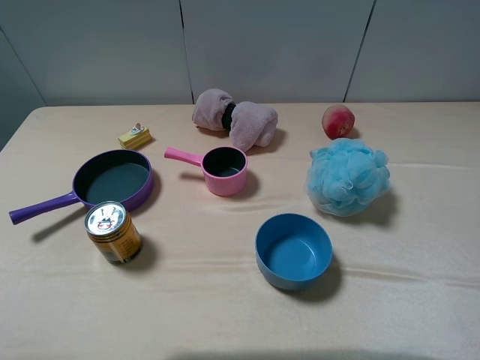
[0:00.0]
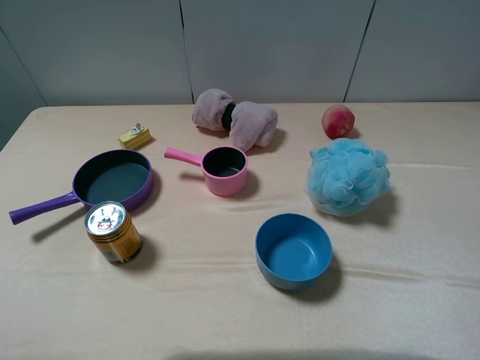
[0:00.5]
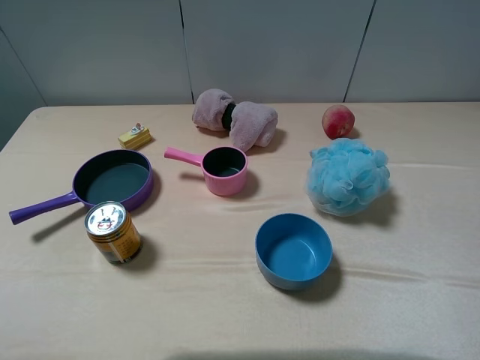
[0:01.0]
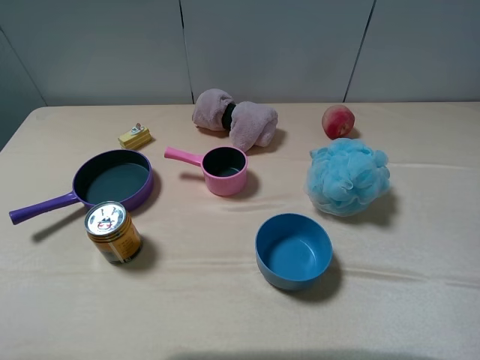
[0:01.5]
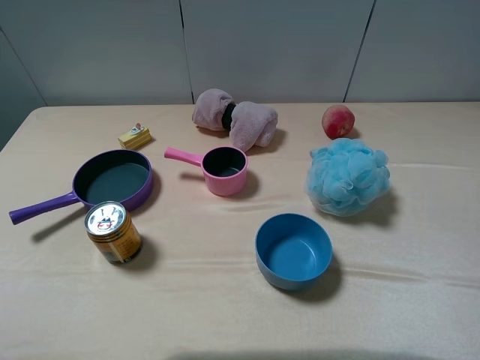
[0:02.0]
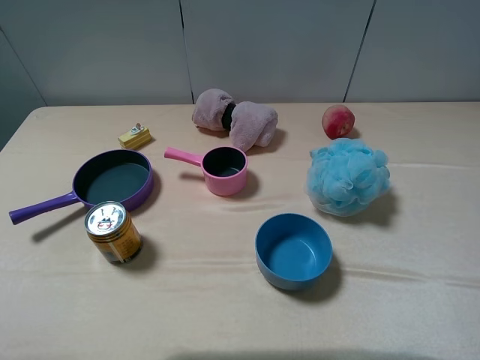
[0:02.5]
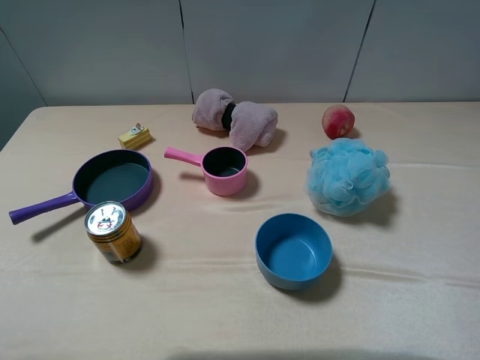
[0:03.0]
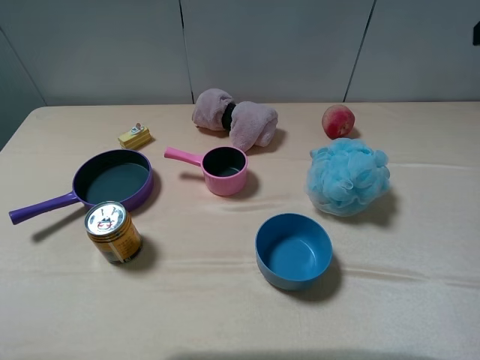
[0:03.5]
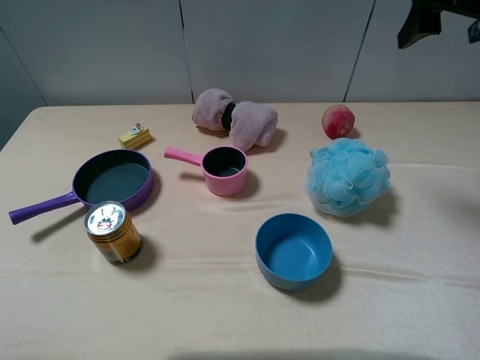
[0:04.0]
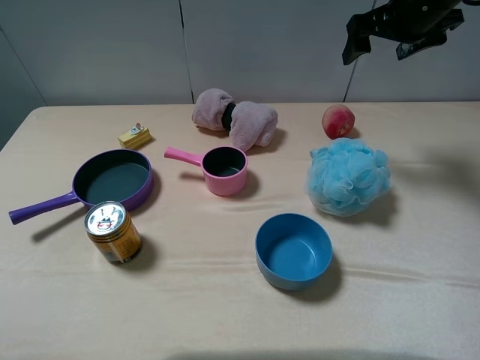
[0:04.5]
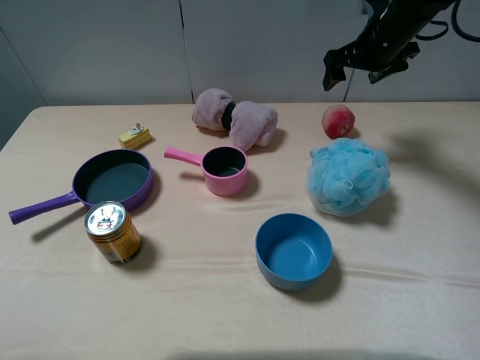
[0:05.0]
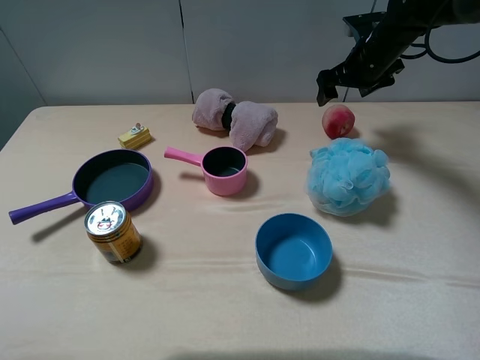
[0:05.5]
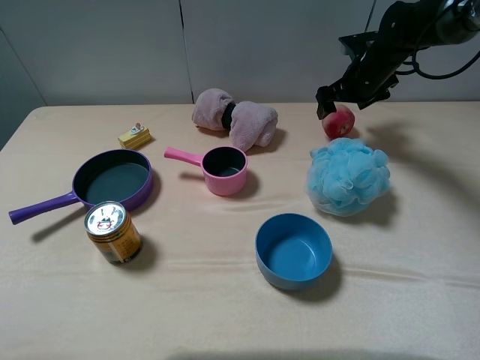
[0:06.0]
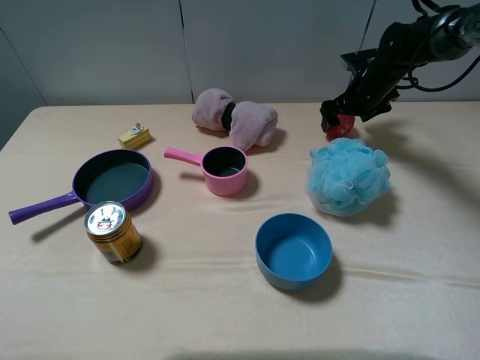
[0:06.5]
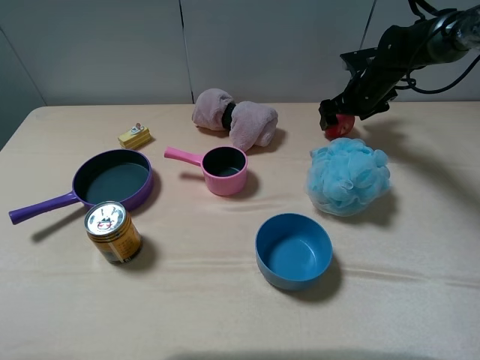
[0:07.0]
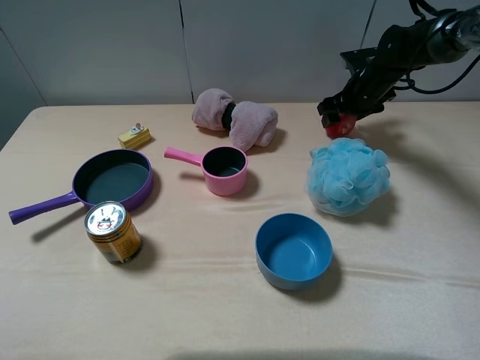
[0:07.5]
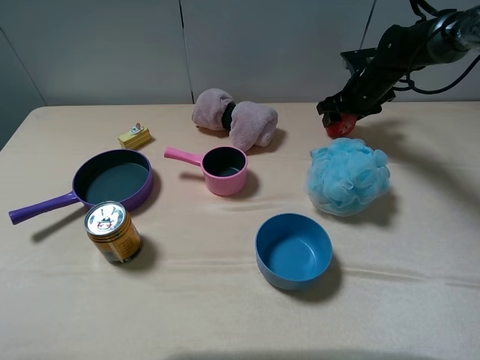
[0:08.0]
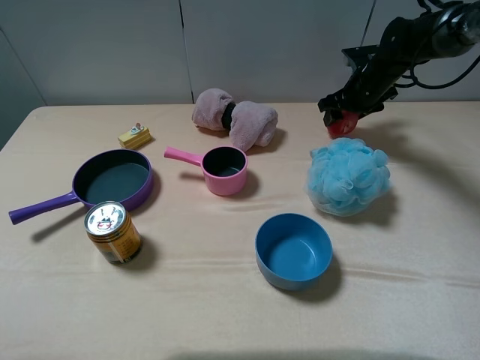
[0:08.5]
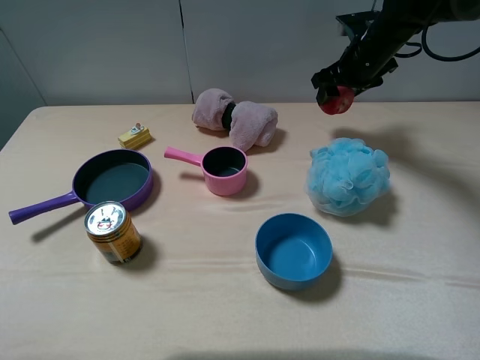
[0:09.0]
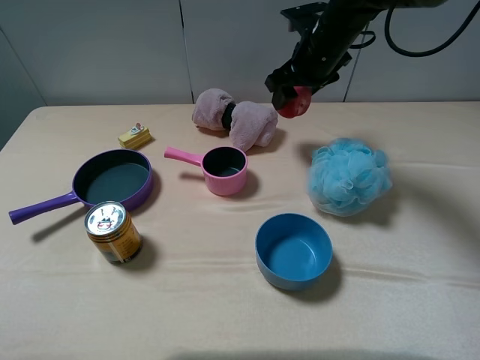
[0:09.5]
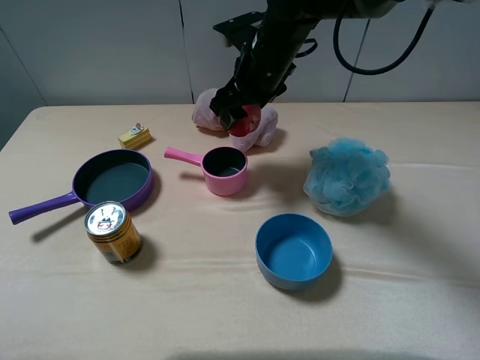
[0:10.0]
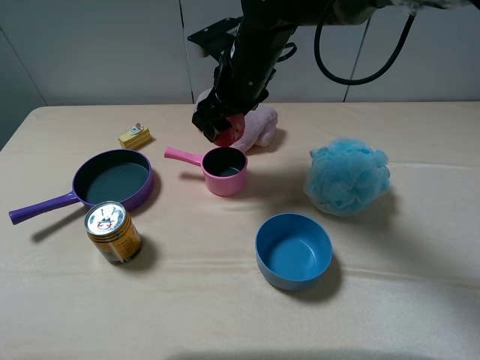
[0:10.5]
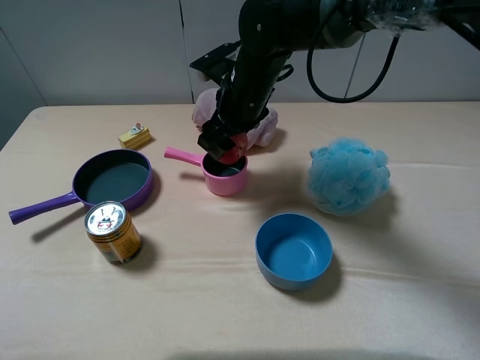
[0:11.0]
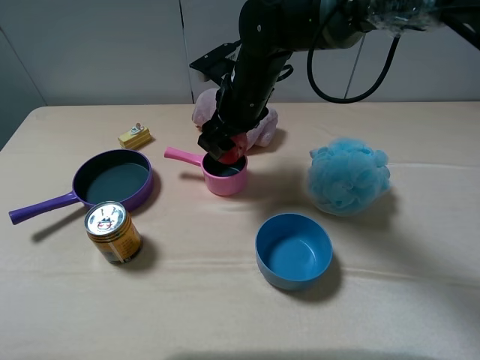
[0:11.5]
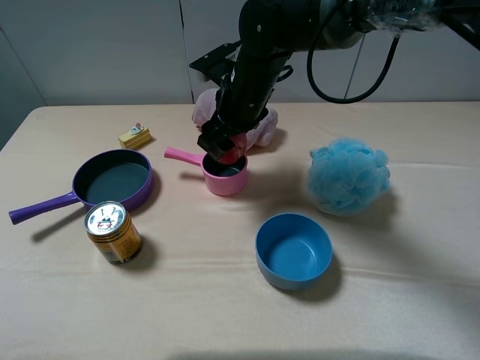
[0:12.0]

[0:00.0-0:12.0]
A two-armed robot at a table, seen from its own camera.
Task of the whole recording: pick up an item with a gripper and place it in a random container on the table.
Step, 0.0 to 7.5 s: Grasp the peach with the right gripper.
0.0 to 2.0 s: Both grippers stay about where they are.
2.0 to 4.0 s: The right gripper moves forward, approximately 35 cm.
4.0 to 6.0 s: The right gripper travels downward and forward by roughly 25 cm.
6.0 to 8.0 s: The right gripper closes up.
8.0 to 10.0 s: The right gripper goes roughly 25 cm to the left, backward and upward.
10.0 to 12.0 s: The grippers make only small movements.

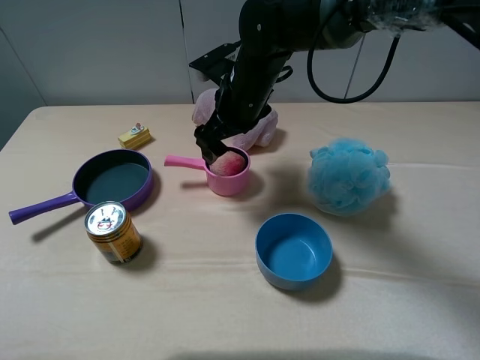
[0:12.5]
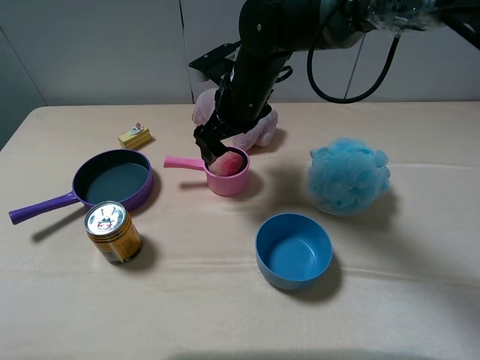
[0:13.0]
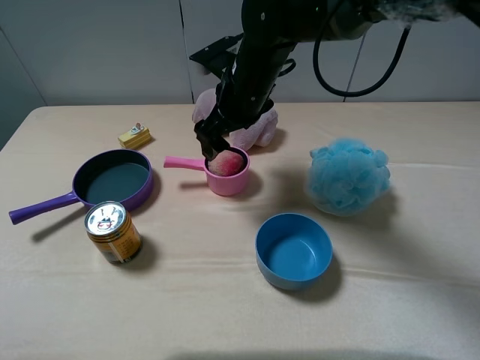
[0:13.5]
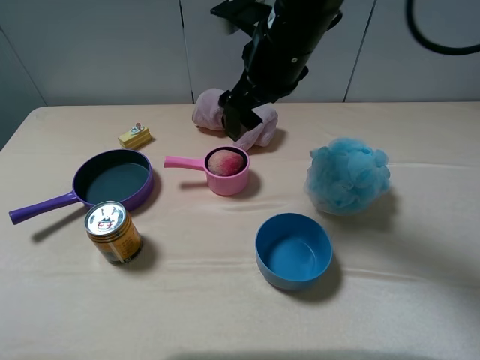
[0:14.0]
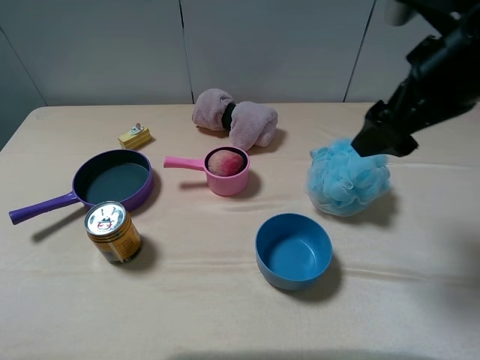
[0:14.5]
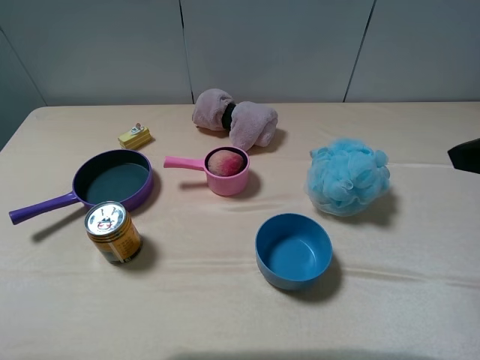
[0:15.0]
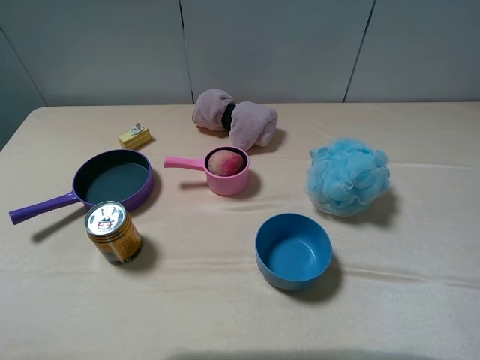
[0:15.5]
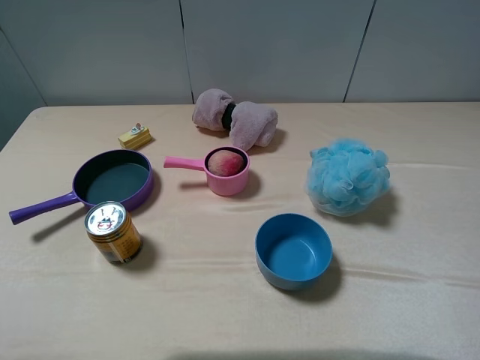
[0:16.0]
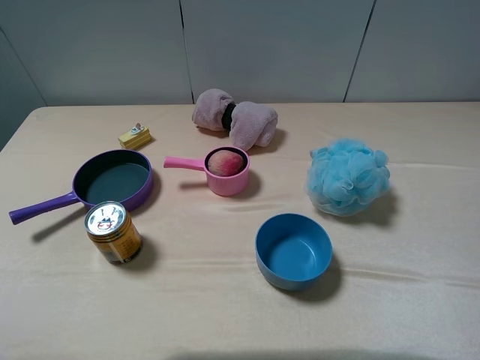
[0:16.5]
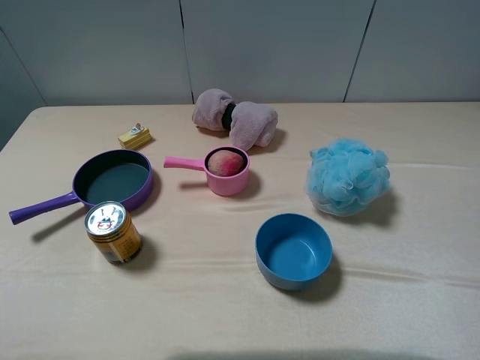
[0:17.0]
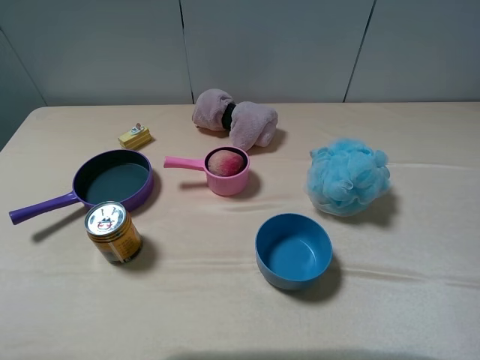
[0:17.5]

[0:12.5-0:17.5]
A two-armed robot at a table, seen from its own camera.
Task of the whole recording: pick up an item with a gripper and place it in a random container on the table.
12.5 to 15.0 s: The right gripper heads to the right, backward and upward, covering about 35 cm.

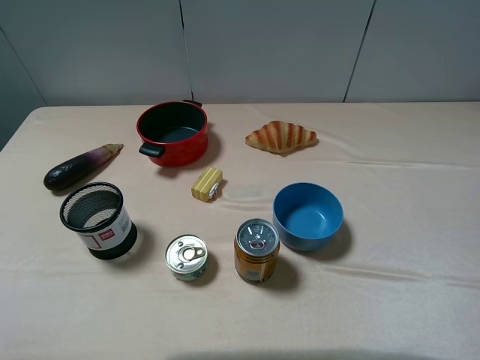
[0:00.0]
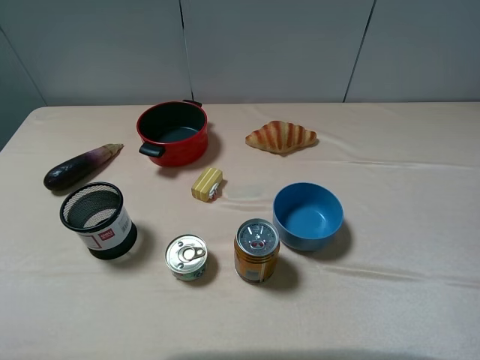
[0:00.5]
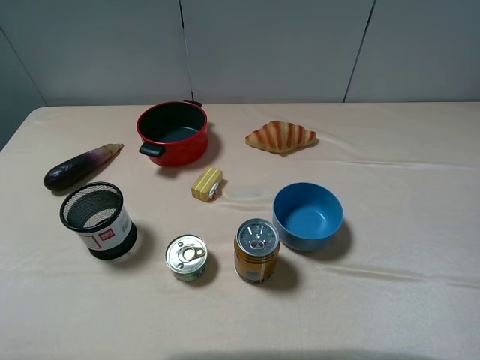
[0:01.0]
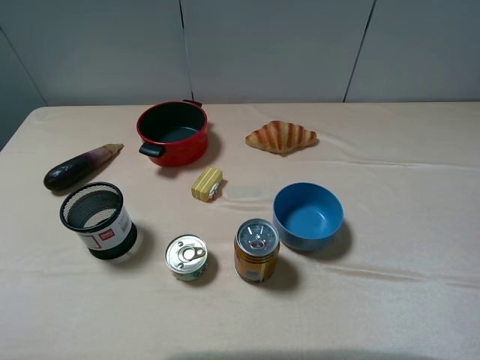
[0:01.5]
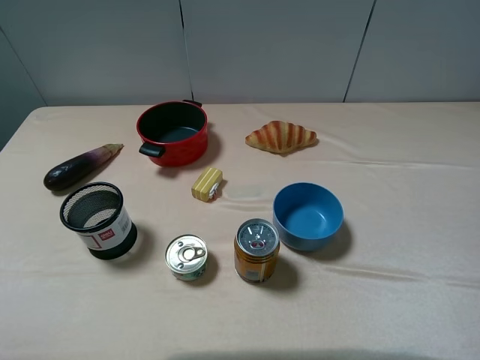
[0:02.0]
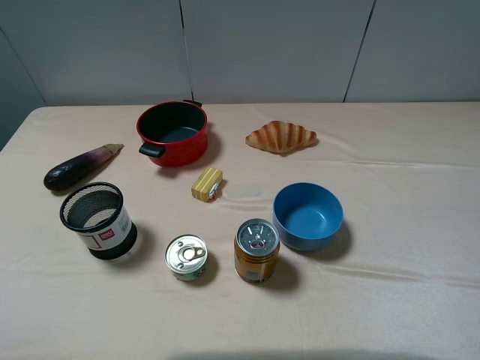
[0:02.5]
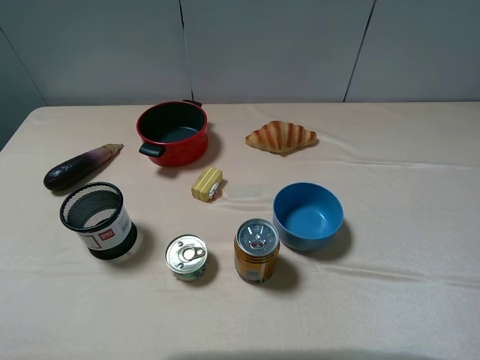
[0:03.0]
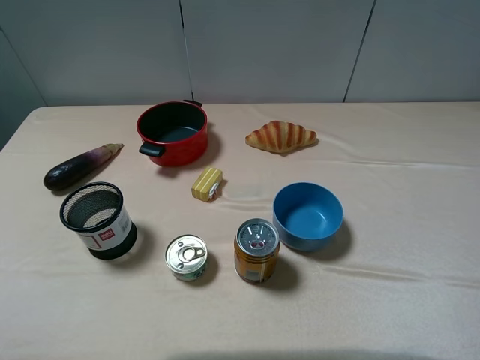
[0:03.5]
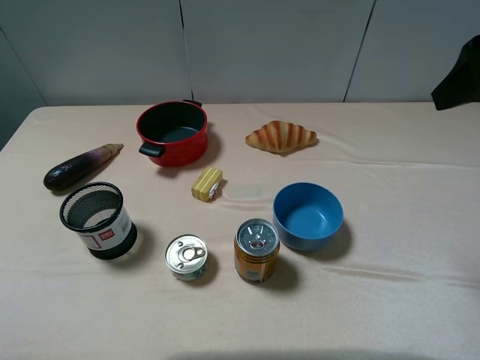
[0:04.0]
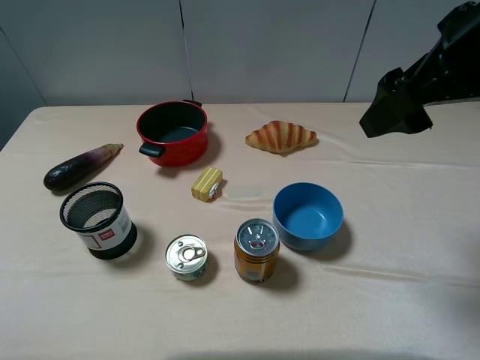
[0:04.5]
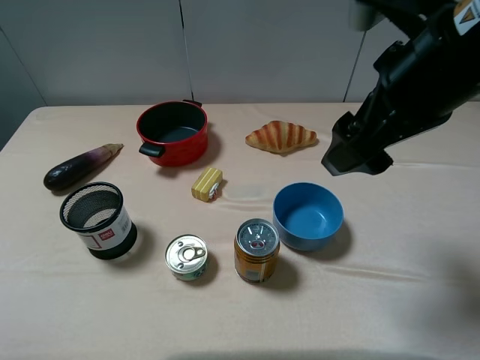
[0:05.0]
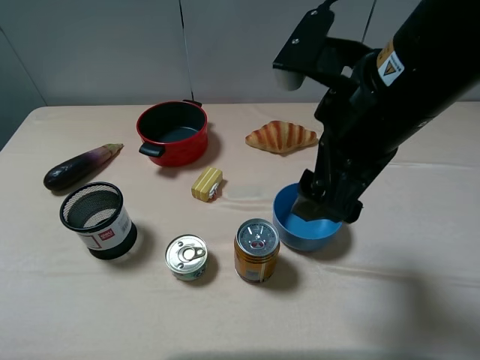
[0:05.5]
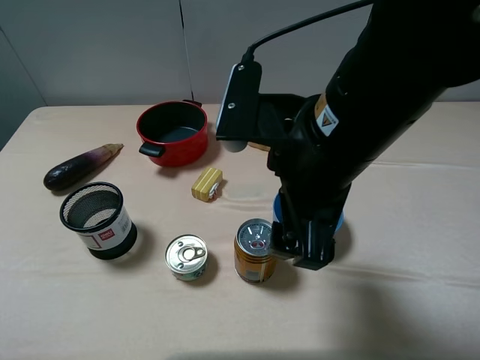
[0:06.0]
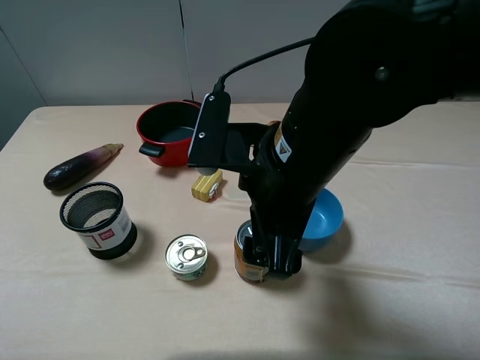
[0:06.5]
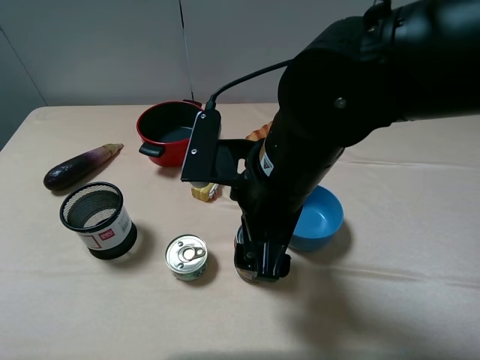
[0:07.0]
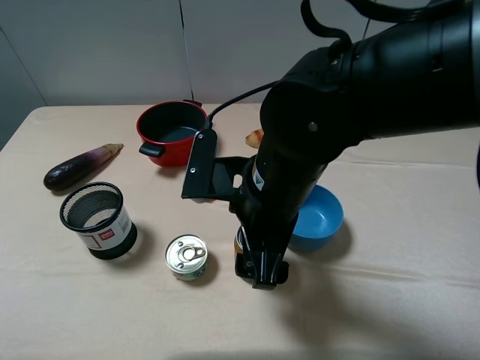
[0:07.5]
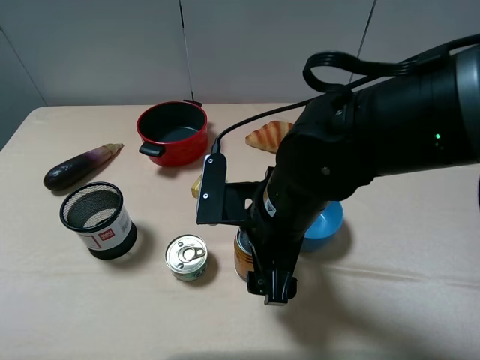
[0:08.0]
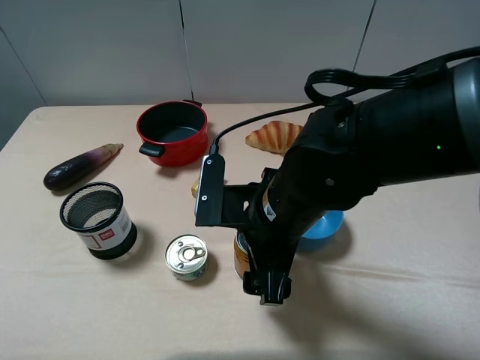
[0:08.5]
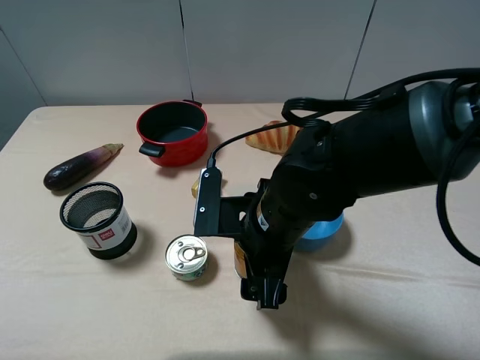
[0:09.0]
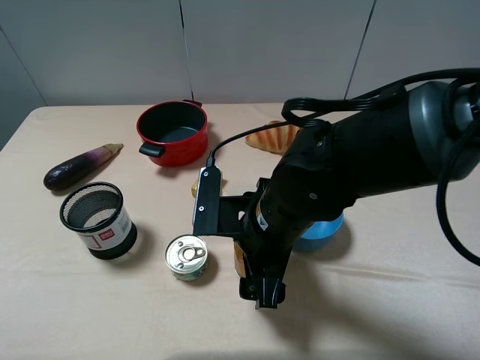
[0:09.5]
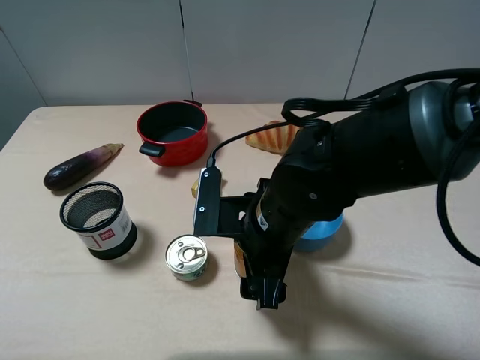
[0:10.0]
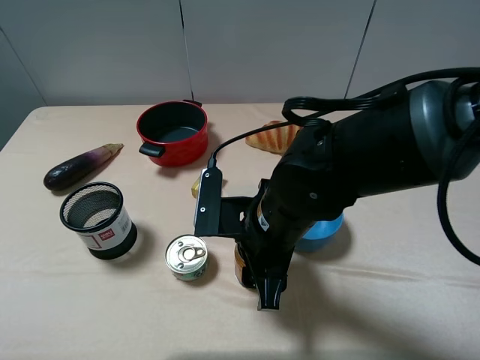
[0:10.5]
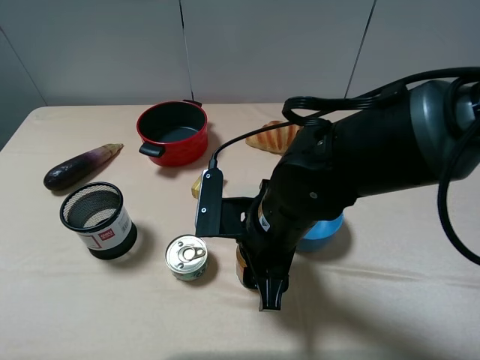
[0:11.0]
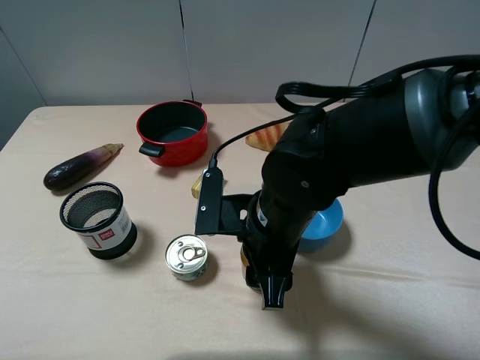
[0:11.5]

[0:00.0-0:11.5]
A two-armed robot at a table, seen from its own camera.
Task of the whole recording: pick up an item with a gripper and place it in a random container on the table.
Step, 0.0 to 10.0 s: Grasp the red bull with the right gripper.
0.0 to 2.0 s: Both grippers stay about where they are.
2.0 to 4.0 s: The right gripper is displaced forward by some 20 cm.
4.0 to 6.0 s: The right gripper heads to the left and downward, covering roughly 20 cm.
6.0 to 7.5 s: The right gripper moves downward, about 5 cm.
7.5 to 9.5 s: The right gripper is displaced downward by some 5 cm.
9.5 to 11.5 s: The right gripper closes up.
